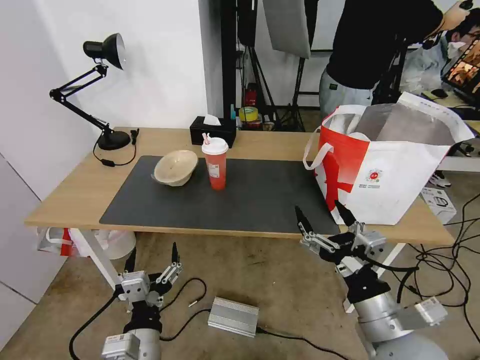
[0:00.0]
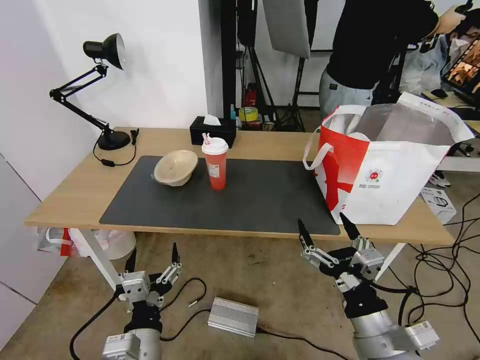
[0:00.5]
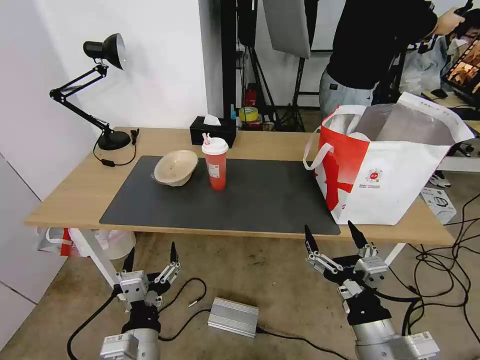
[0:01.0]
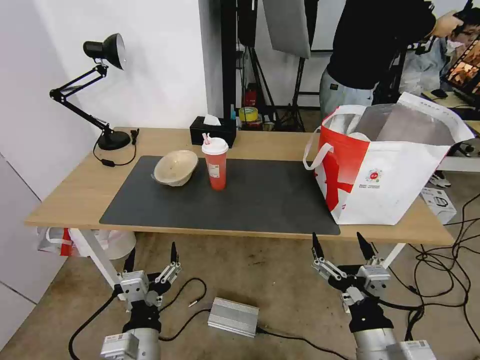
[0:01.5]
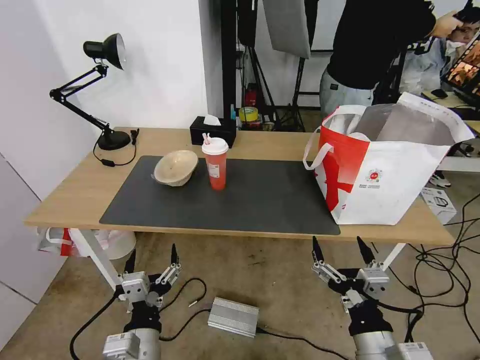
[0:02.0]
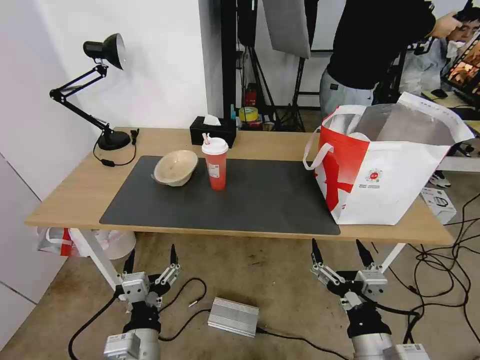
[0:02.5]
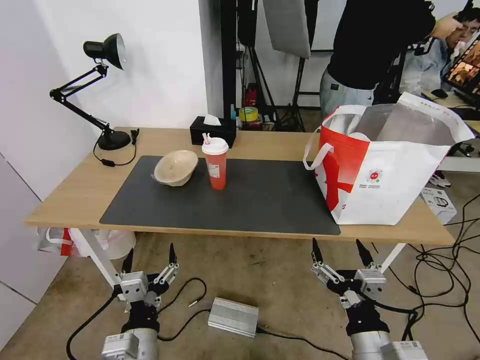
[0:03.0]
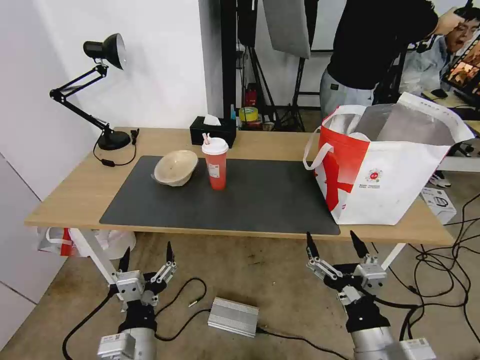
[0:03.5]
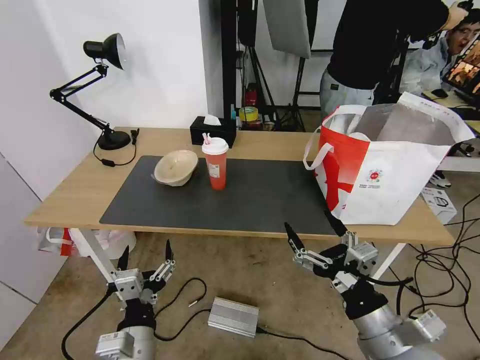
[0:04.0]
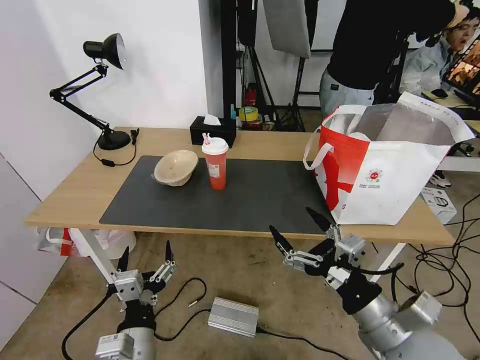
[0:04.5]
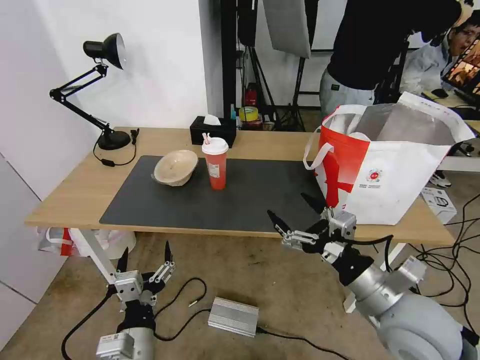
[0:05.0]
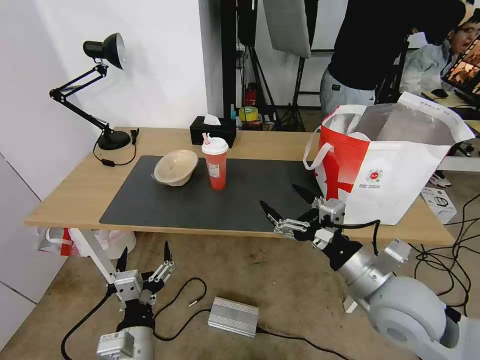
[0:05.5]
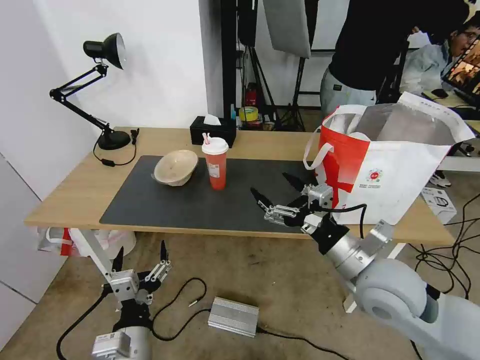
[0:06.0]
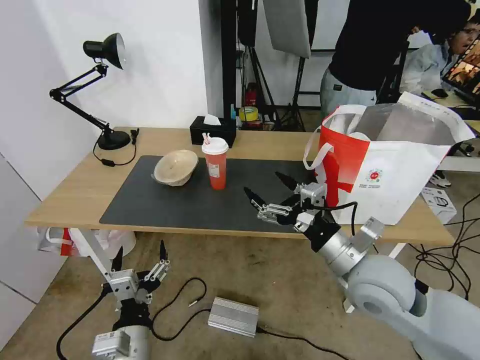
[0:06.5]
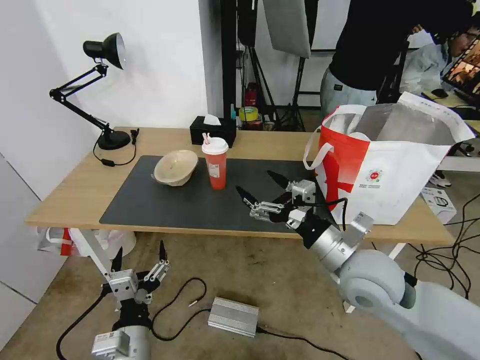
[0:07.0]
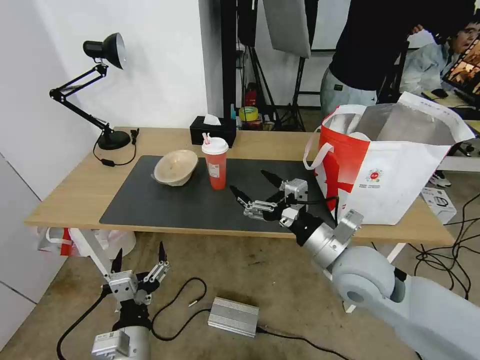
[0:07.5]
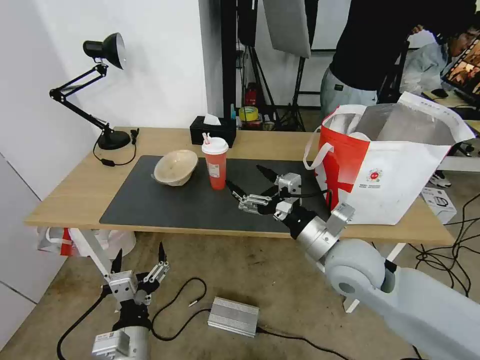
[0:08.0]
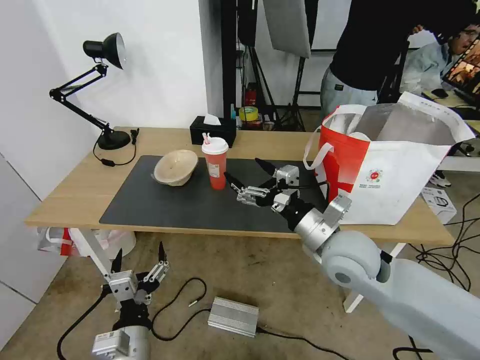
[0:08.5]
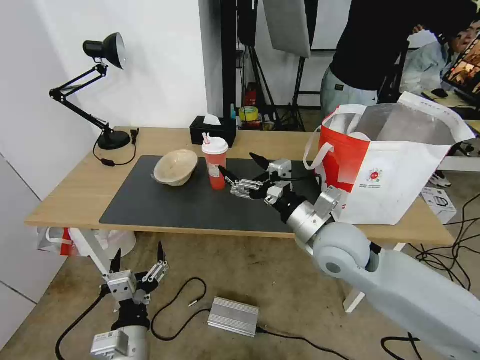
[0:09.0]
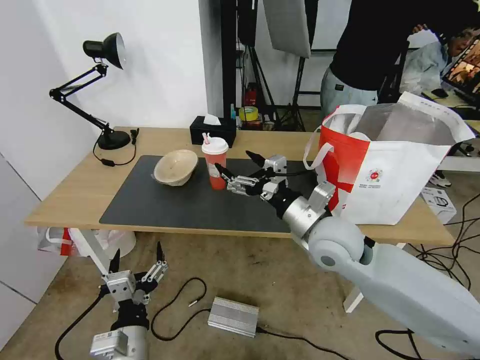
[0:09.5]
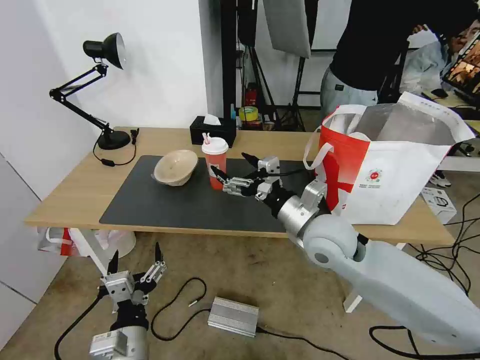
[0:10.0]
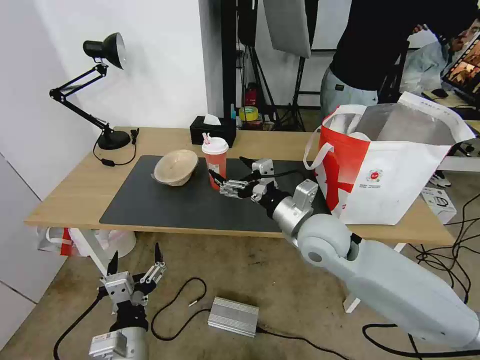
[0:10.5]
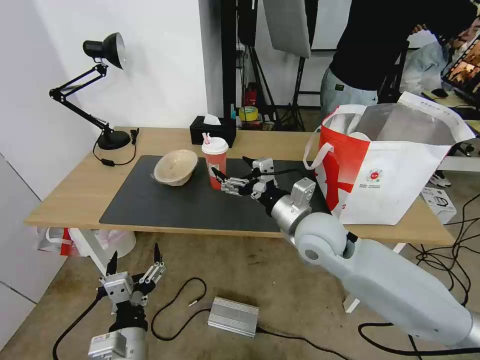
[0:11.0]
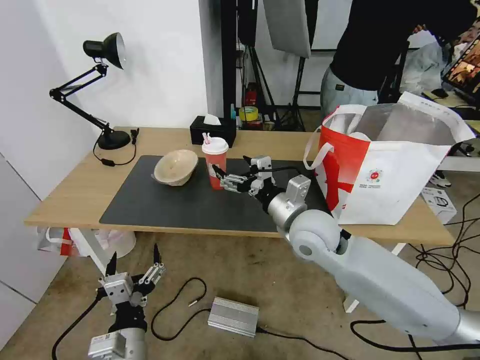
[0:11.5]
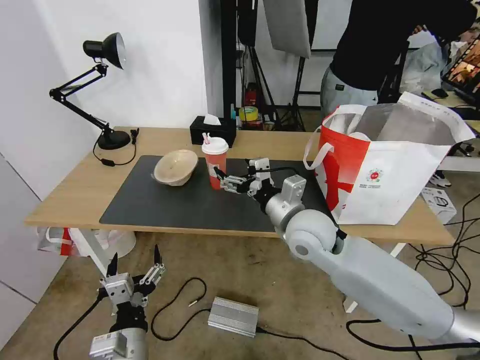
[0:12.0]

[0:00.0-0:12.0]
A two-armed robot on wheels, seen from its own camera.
Task of the whole recording: Pick up the trash from the table and place it into the takeout bag.
0:00.0 to 0:02.0: The right gripper shifts by approximately 5 cm.
0:02.0 to 0:04.0: The right gripper changes place by roughly 5 cm.
0:04.0 to 0:06.0: The right gripper moves forward, roughly 10 cm.
0:06.0 to 0:08.0: The right gripper moves about 5 cm.
0:08.0 to 0:10.0: The right gripper changes place by some 5 cm.
0:10.0 to 0:12.0: The grippers move only a little.

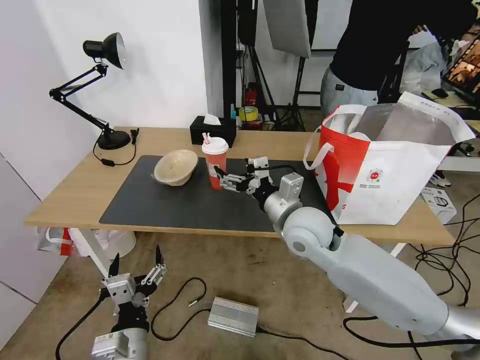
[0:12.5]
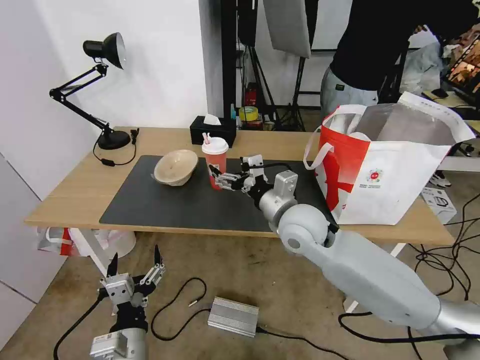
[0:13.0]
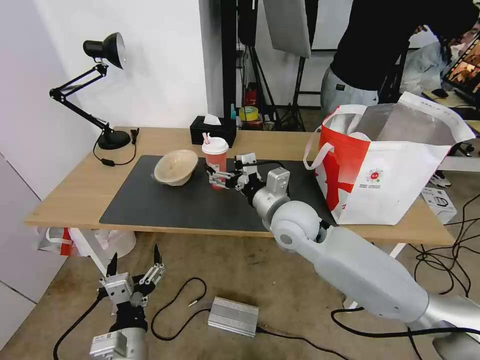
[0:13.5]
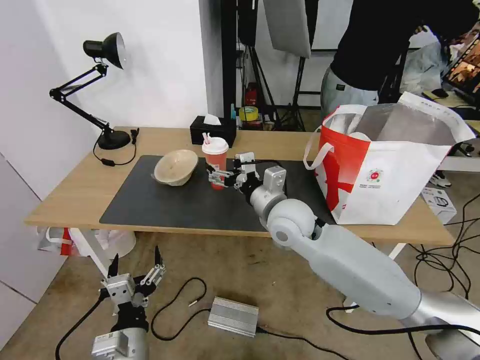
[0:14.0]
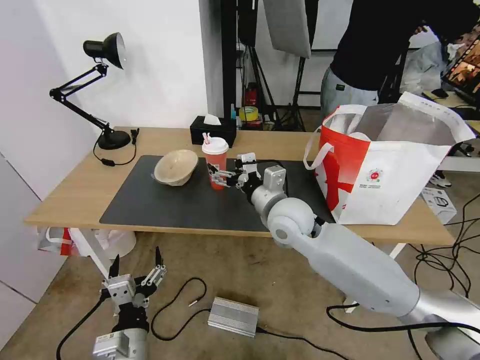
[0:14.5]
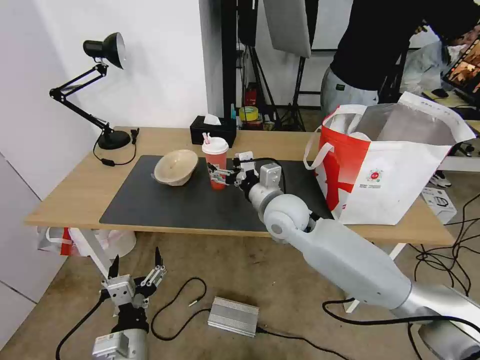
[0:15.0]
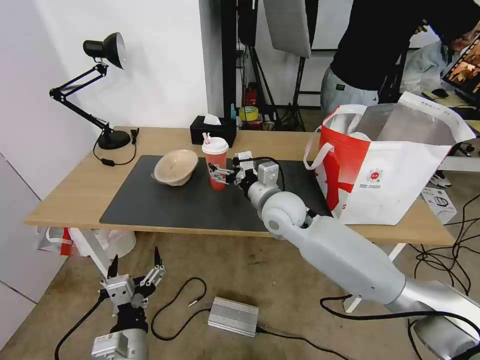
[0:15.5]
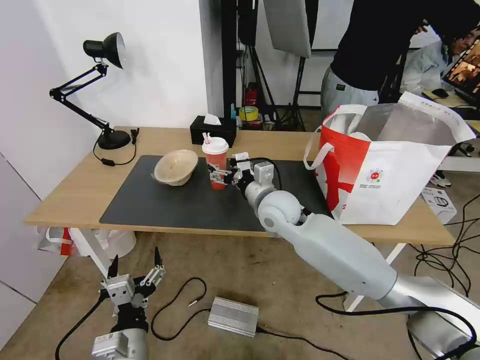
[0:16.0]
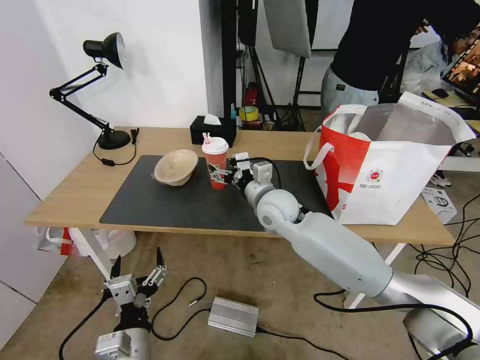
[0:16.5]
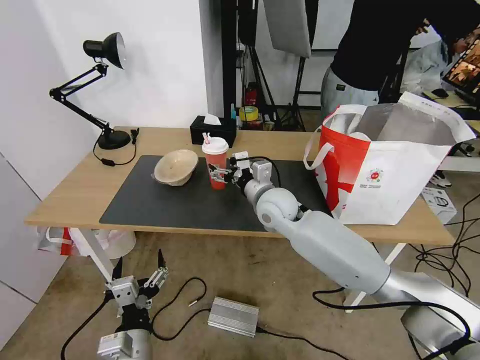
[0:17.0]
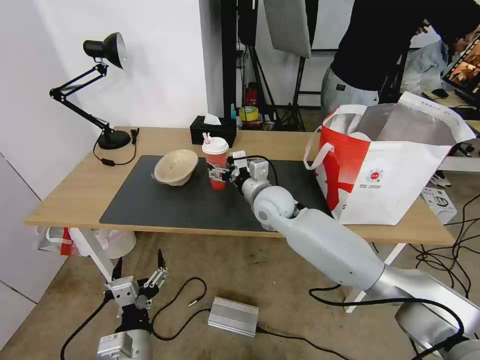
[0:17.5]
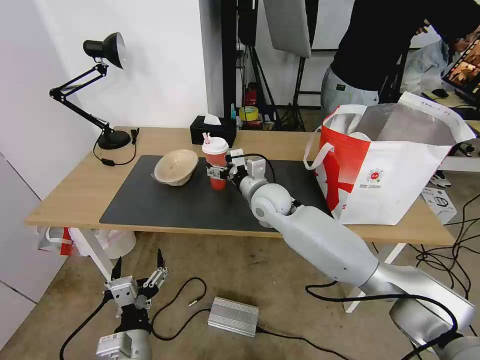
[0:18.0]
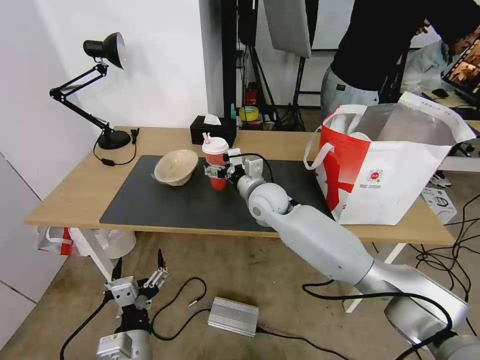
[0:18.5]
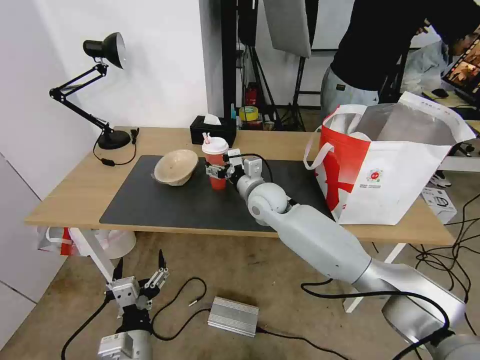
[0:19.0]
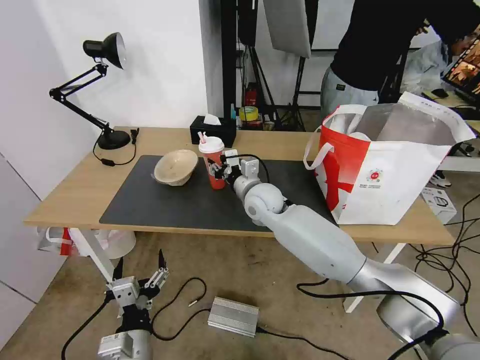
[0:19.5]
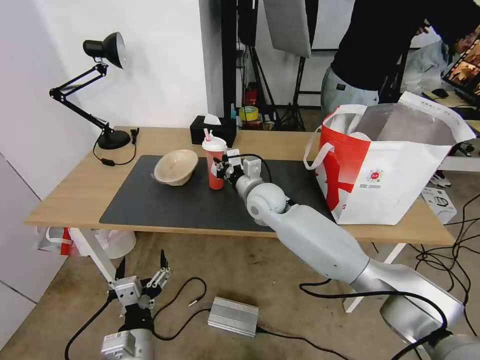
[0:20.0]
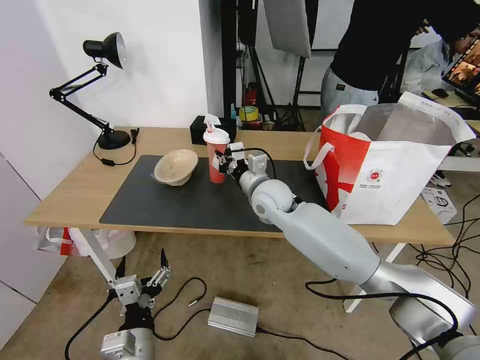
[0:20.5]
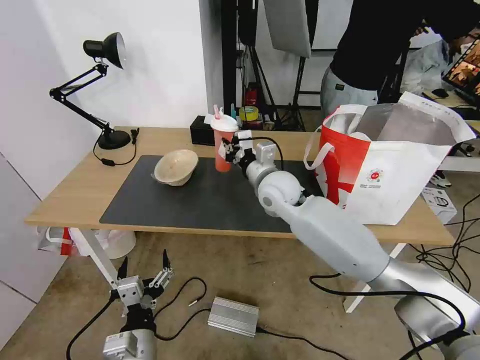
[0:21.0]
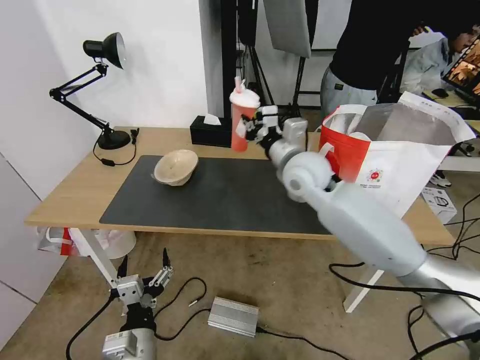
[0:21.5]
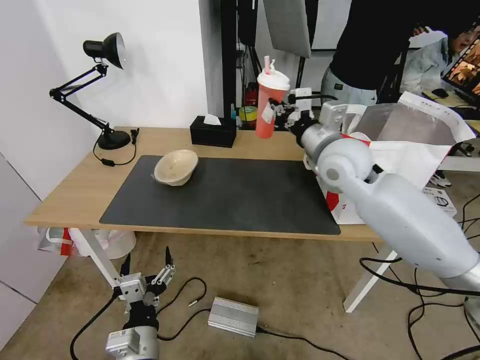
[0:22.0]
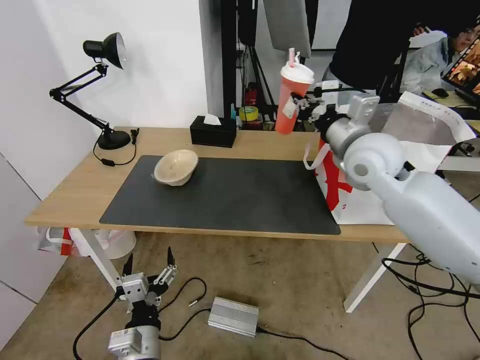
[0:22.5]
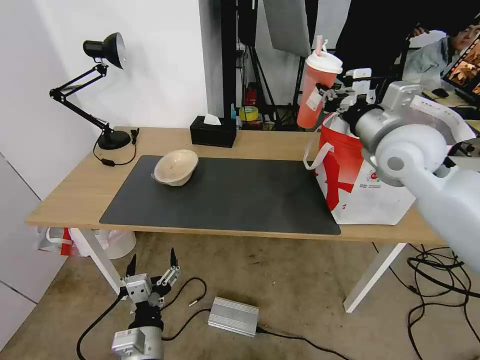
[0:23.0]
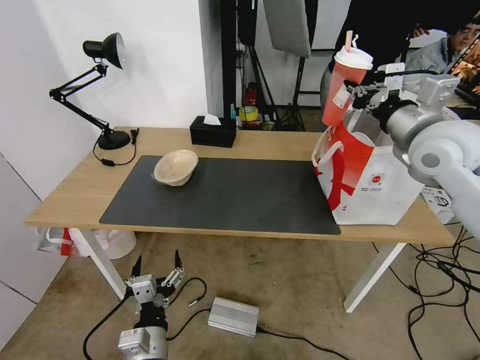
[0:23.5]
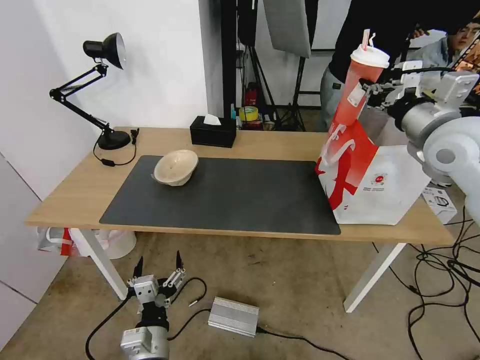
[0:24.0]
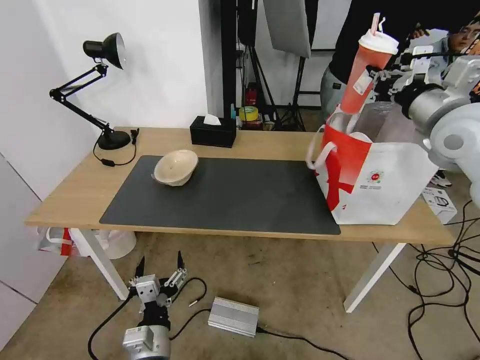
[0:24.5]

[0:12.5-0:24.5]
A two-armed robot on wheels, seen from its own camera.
Task of the whole recording: Pick up the trash from the table and place it into the takeout bag.
0:12.5 to 0:14.5: The grippers stay close to where they were, moving slightly.
0:14.5 to 0:16.5: The right gripper travels forward by some 5 cm.
0:16.5 to 0:18.5: There are only small adjustments of the grippers.
0:18.5 to 0:20.5: The right gripper closes.
0:20.5 to 0:22.5: The right gripper is displaced to the right and upward by some 25 cm.
0:22.5 to 0:24.5: The right gripper is displaced to the right and upward by about 15 cm.

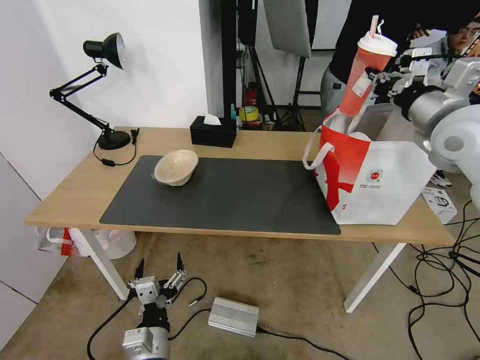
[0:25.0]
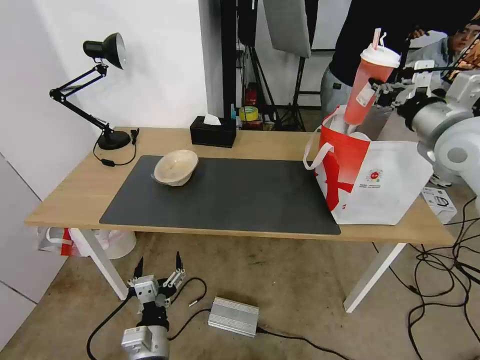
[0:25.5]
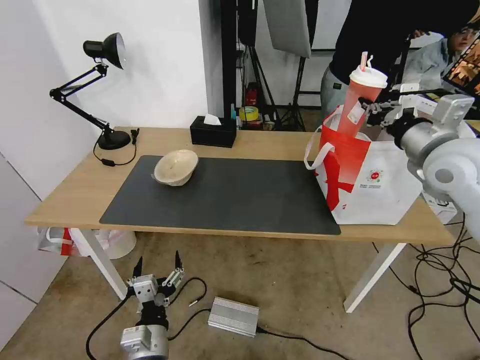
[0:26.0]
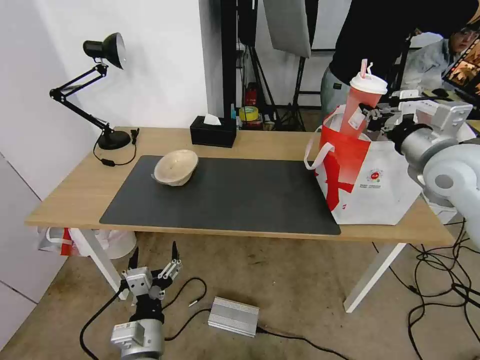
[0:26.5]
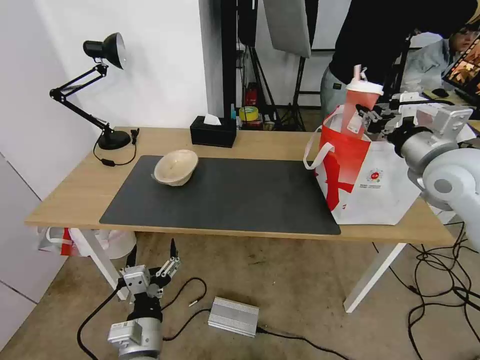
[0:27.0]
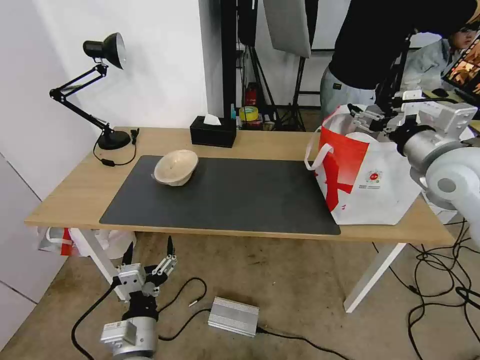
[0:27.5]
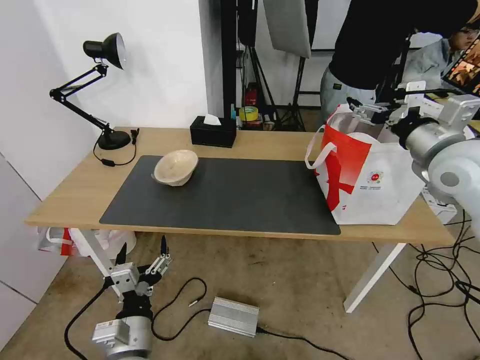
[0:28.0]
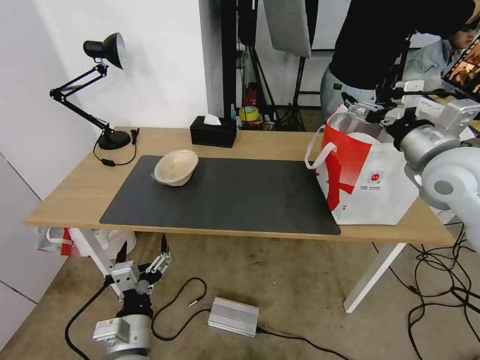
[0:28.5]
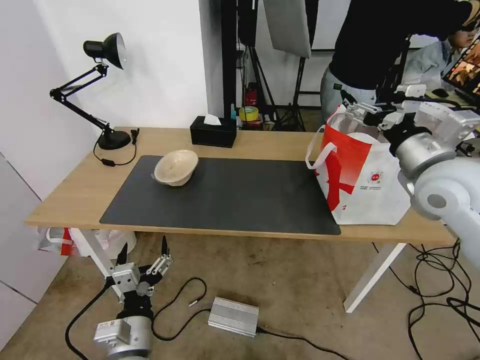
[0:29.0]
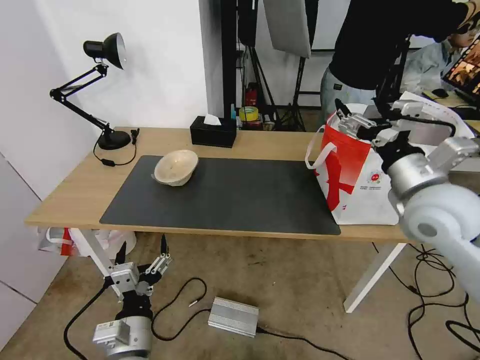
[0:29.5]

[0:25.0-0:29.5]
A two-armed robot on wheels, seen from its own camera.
Task of the whole recording: Pick up the trash from the table and place it into the takeout bag.
0:25.0 to 0:27.0: The right gripper travels downward by approximately 5 cm.
0:27.0 to 0:29.5: The right gripper moves backward and to the left, about 10 cm, and opens up.
